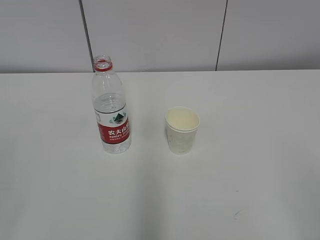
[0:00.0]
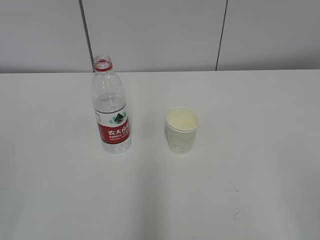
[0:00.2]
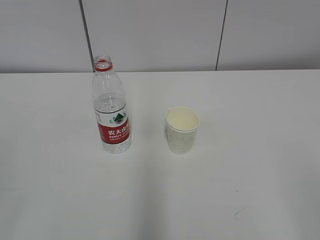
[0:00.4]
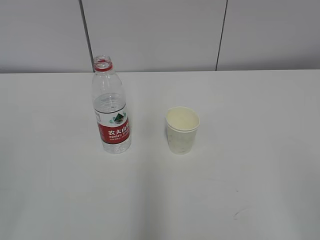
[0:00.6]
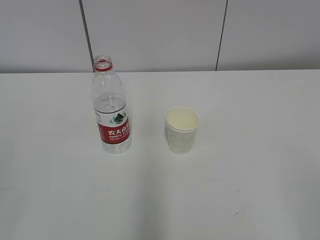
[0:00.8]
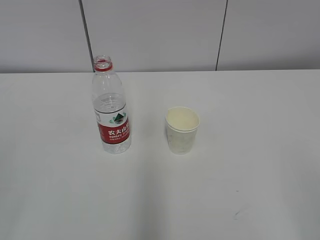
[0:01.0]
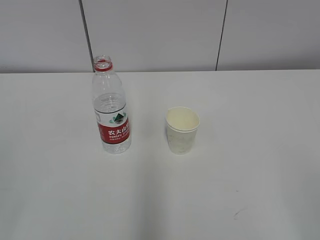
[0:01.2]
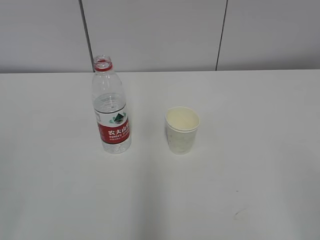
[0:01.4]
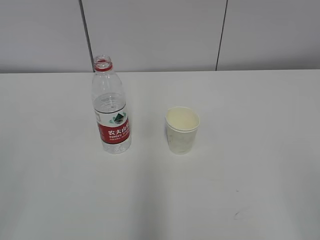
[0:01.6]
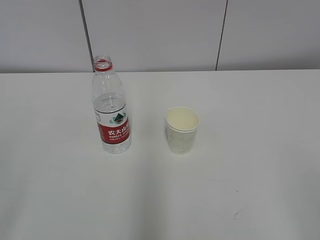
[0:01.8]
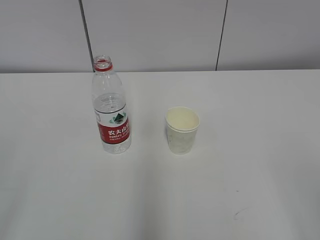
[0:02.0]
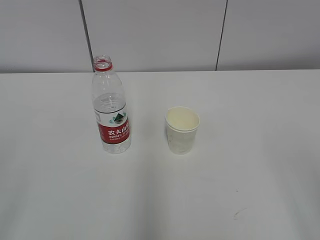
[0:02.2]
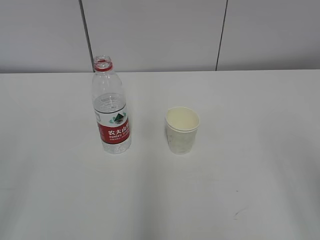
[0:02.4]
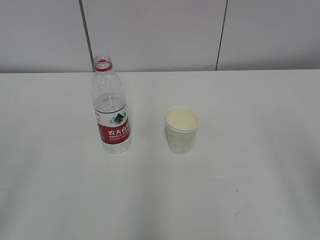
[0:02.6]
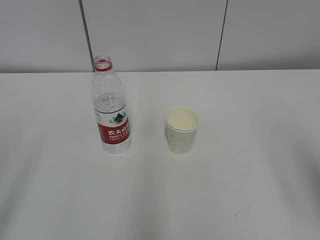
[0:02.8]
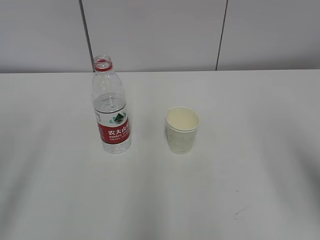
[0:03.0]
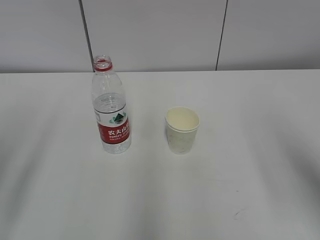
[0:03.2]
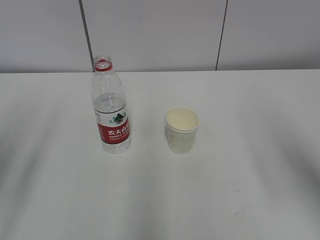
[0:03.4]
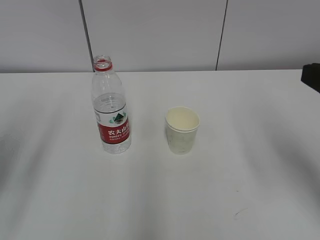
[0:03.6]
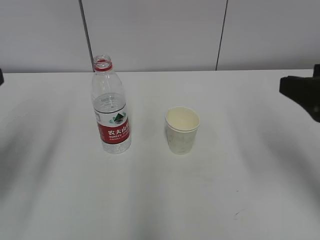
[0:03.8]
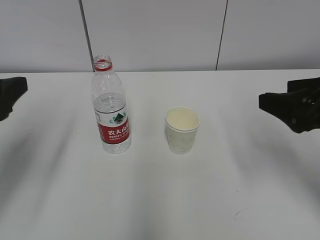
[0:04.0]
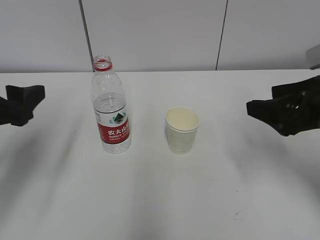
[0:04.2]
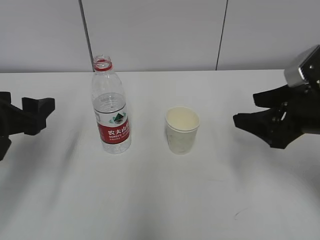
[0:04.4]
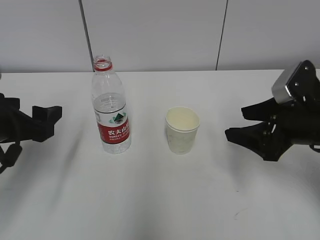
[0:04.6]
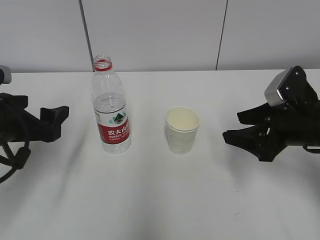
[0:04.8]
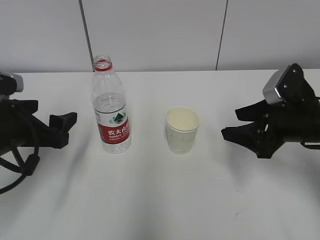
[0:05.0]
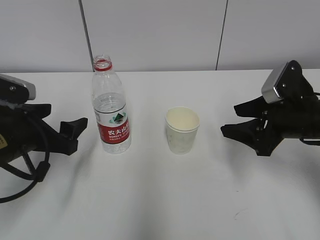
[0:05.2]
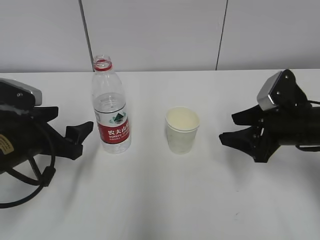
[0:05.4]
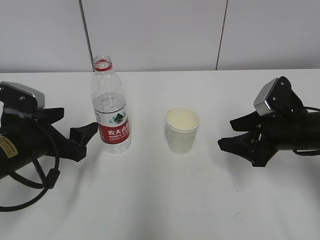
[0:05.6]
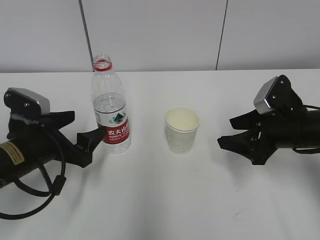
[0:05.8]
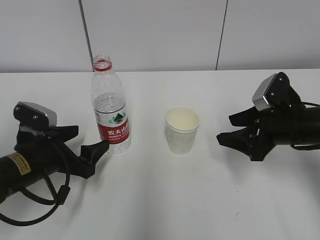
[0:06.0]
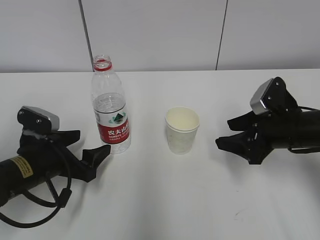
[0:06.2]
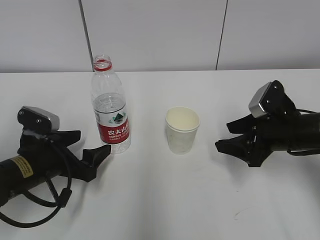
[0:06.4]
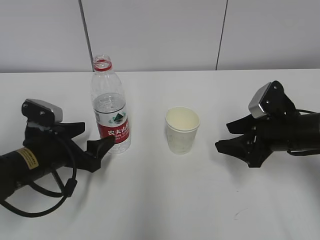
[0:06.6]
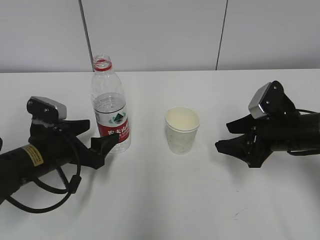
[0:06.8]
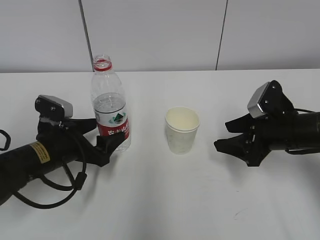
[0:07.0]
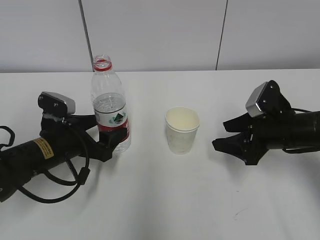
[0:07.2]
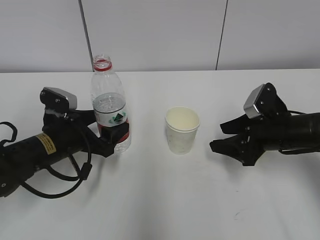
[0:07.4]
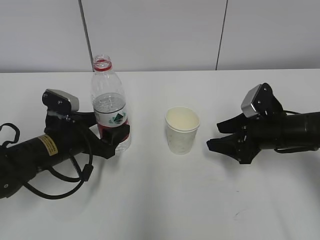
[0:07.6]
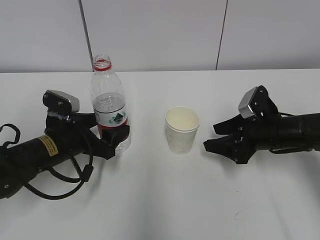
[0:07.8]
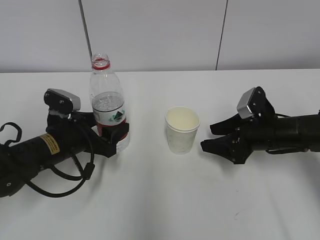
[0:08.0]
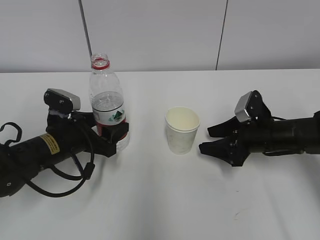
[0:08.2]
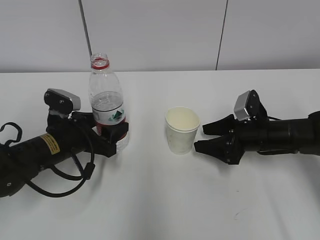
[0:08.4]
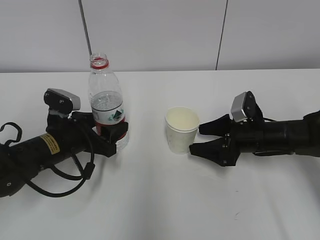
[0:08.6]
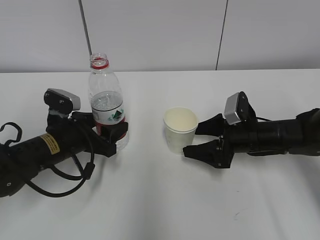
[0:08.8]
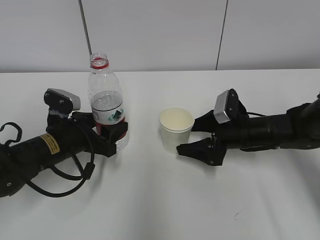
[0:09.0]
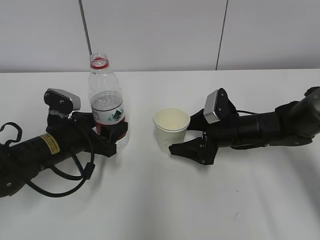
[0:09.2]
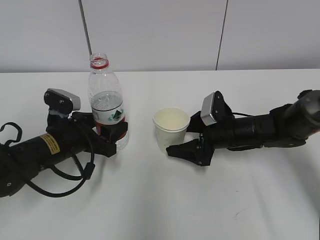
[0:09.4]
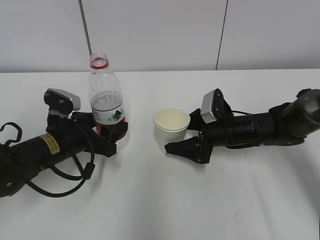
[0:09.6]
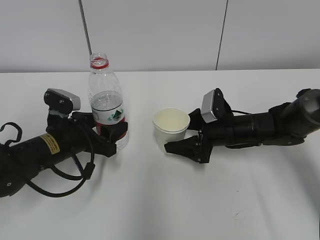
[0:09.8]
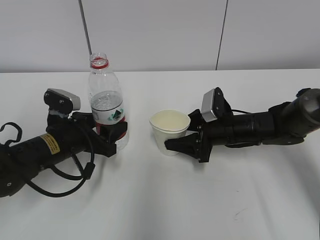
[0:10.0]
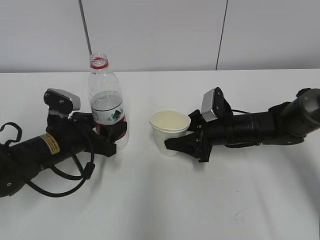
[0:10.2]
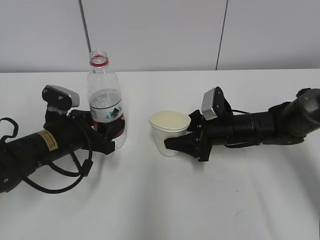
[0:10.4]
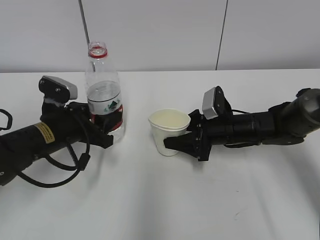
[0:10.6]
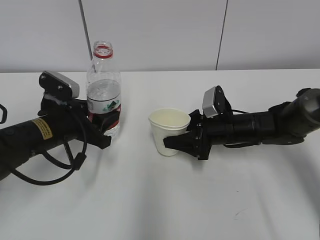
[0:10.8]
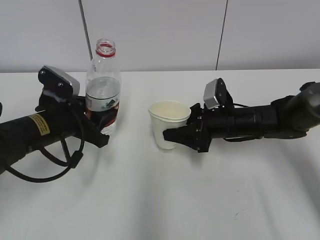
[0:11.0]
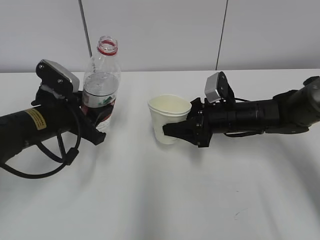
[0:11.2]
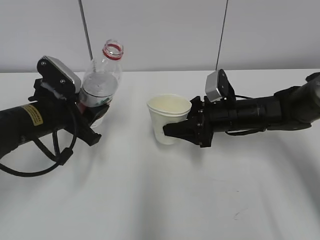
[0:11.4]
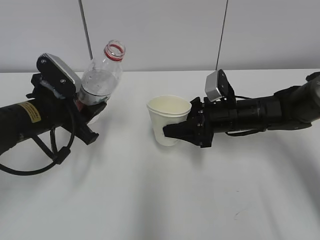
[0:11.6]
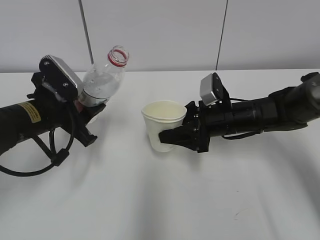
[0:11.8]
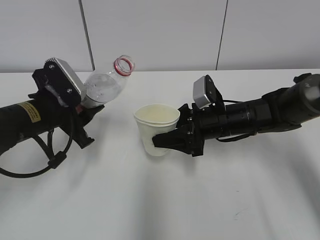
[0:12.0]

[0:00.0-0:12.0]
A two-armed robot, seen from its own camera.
Step, 0:00.0 to 0:07.0: Grab the water bottle with the left hand.
Step, 0:07.2 to 0:08.4: Grab the paper cup with the right hand.
0:01.6 to 0:03.0: The right gripper is displaced forward and upward by approximately 15 cm.
0:03.0 to 0:04.4: Both grippers move forward and downward, roughly 20 cm.
0:04.4 to 0:06.0: The left gripper heads downward, covering roughly 10 cm. The right gripper heads downward, covering approximately 5 cm.
0:06.0 to 0:07.6: The left gripper shifts by approximately 5 cm.
0:07.6 to 0:09.0: The right gripper ends up some 5 cm from where it was, and opens its fingers.
0:09.0 to 0:10.4: The right gripper closes its fingers.
0:10.4 to 0:12.0: The left gripper is displaced upward by approximately 5 cm.

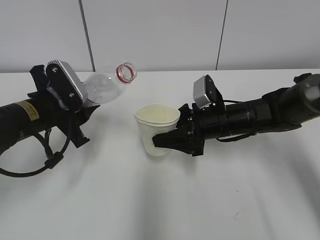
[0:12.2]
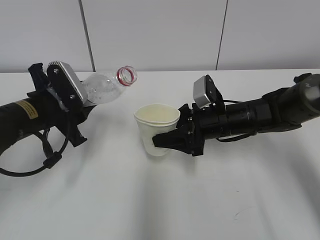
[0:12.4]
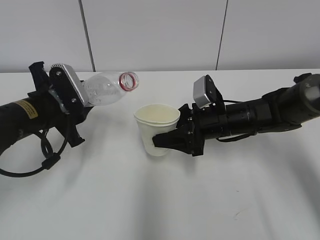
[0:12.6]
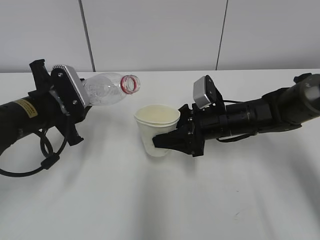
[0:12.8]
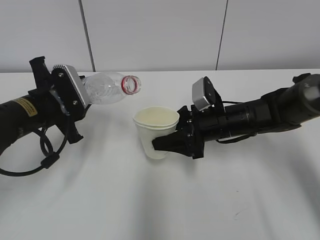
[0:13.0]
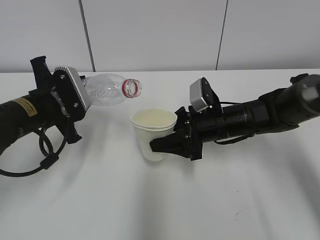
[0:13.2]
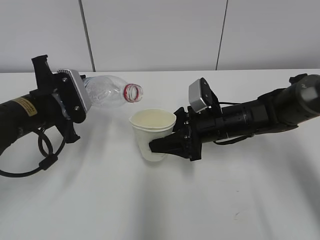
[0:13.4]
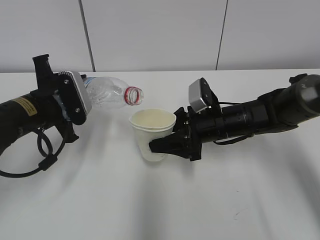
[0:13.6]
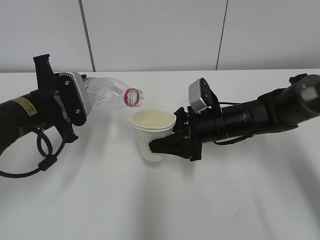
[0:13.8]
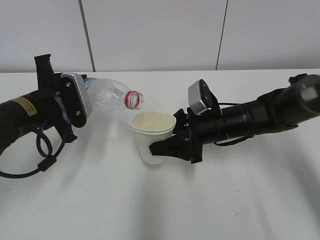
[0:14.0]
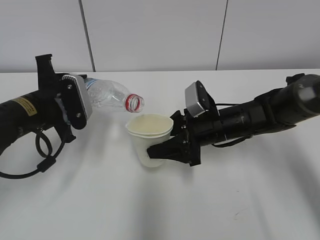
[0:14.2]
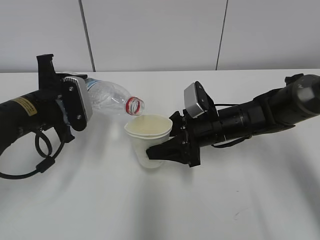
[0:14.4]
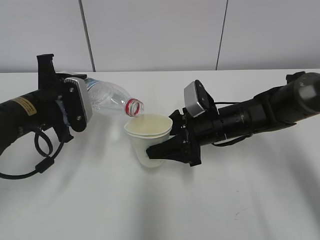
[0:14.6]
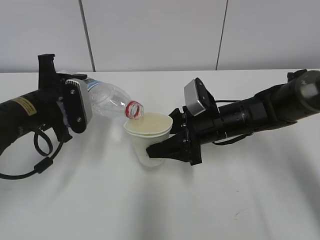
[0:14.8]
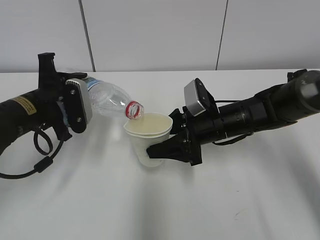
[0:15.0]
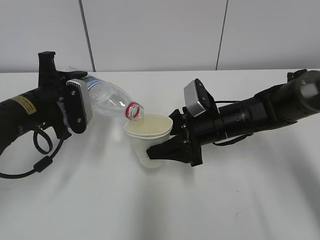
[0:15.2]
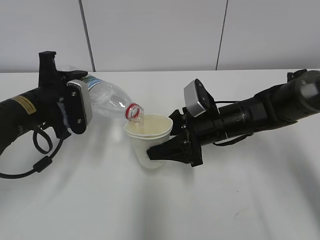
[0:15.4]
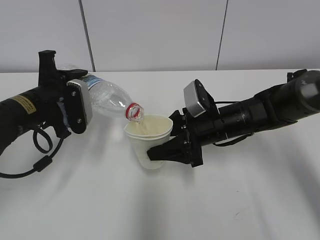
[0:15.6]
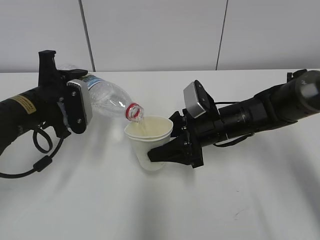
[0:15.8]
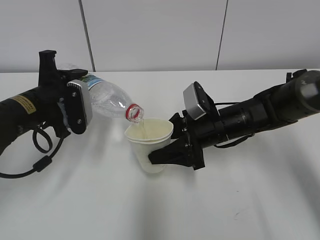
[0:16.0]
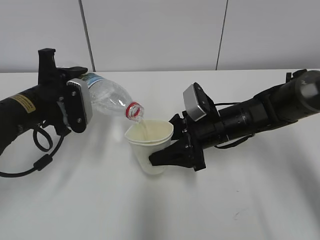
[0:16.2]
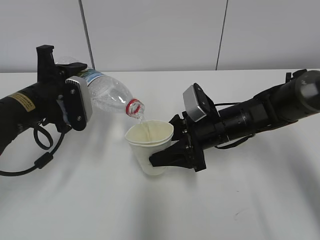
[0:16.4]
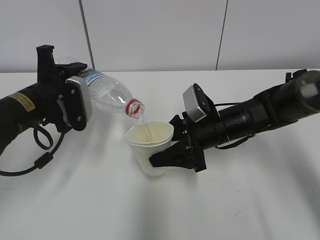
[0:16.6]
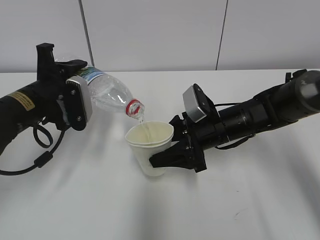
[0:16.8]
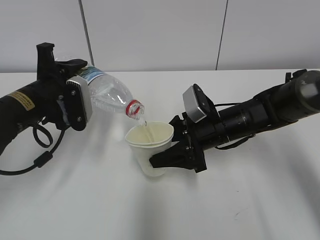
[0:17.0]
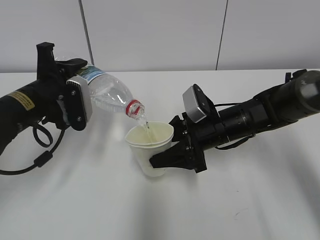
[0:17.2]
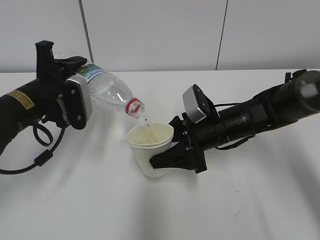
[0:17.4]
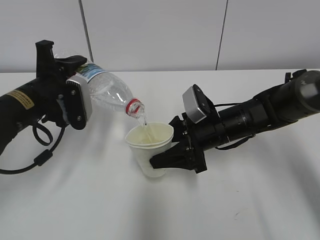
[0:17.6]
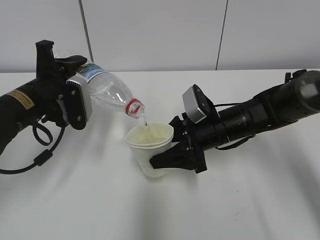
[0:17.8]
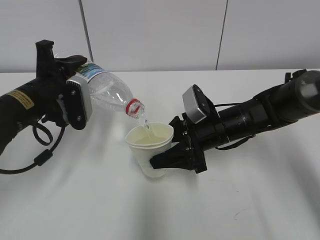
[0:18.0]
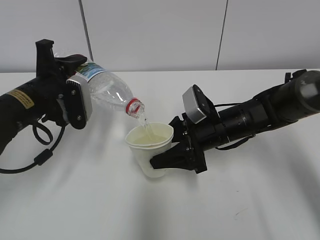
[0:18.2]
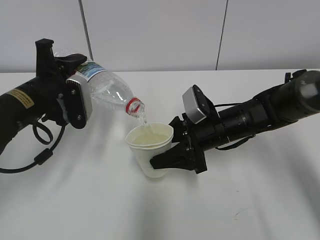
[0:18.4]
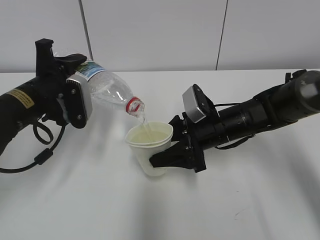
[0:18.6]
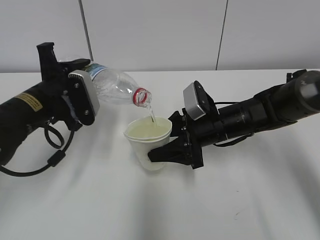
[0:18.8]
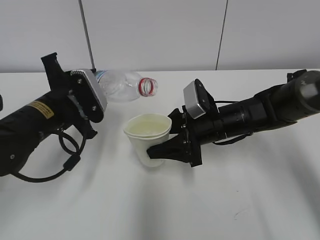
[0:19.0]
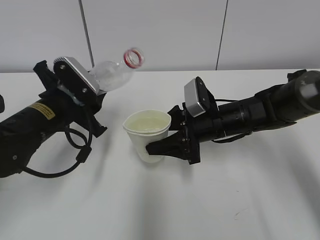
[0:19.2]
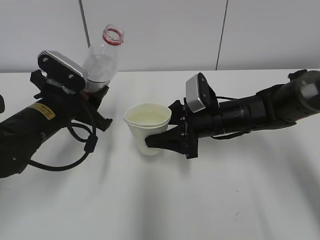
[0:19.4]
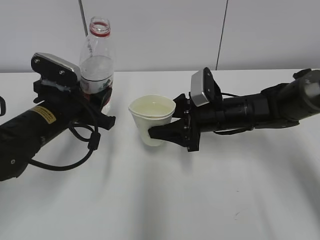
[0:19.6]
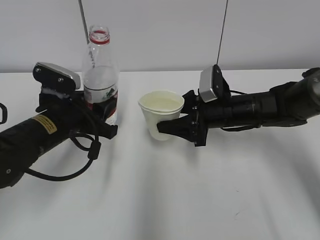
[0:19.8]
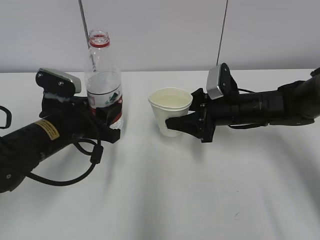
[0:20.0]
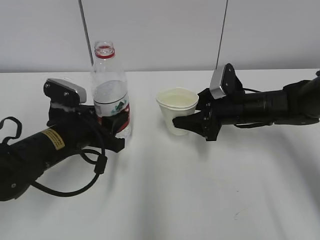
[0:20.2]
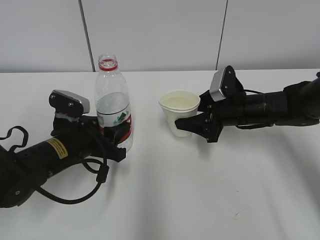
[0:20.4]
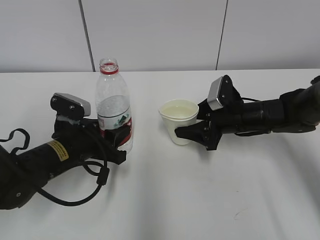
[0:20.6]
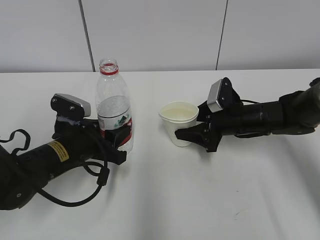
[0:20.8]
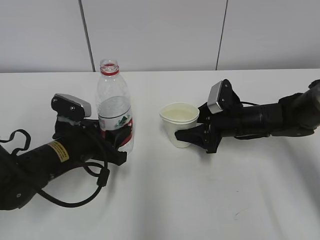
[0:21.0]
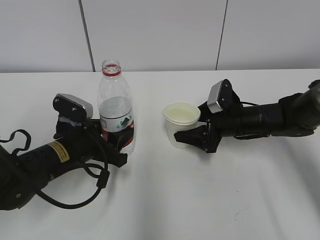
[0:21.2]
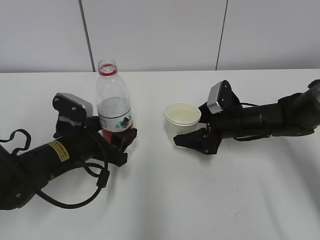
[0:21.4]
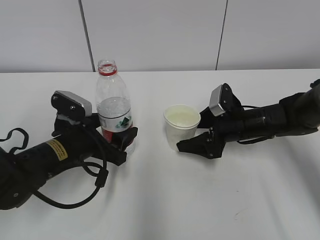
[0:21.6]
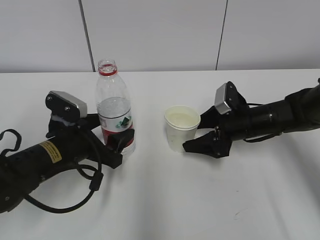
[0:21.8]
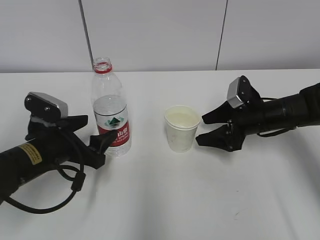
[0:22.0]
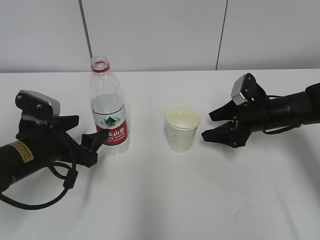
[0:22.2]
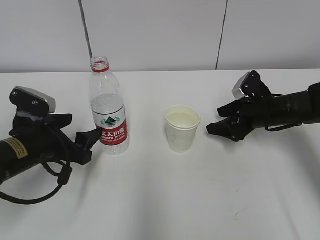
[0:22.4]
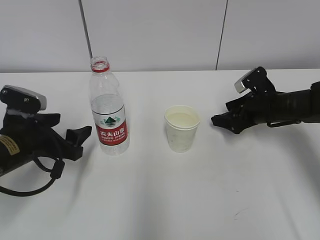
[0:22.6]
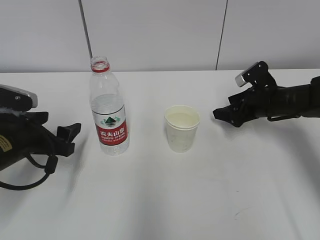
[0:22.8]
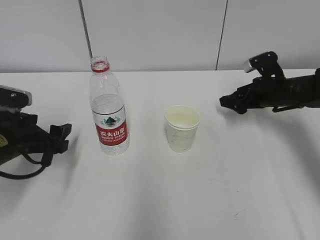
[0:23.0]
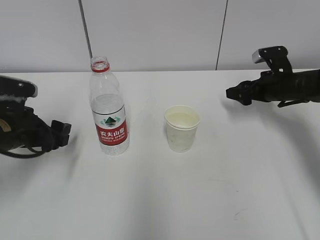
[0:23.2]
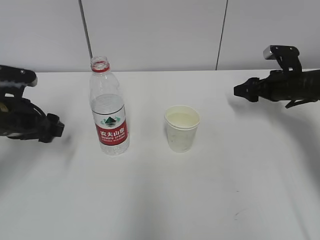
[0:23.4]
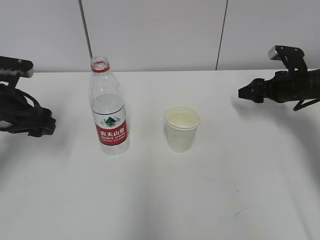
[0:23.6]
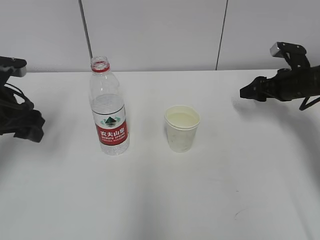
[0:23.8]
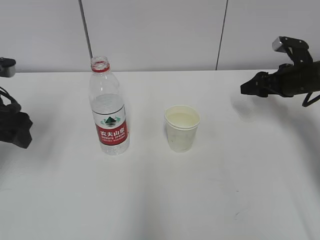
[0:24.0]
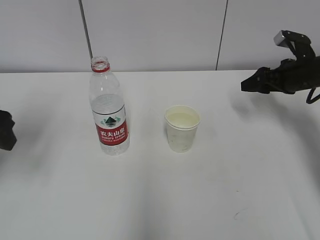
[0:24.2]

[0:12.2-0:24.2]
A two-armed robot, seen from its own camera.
Step, 0:12.4 to 0:15.6: Fill water with the right hand.
Step, 0:12.4 to 0:15.6: Pour water with the left hand.
Step, 0:15.8 to 0:16.4: Collect water with the left hand.
Step, 0:16.6 to 0:17.8: Place the water bottle with the left hand.
0:13.8 to 0:16.6: The grippers move only a little.
0:16.6 to 0:18.2: The grippers make only small movements.
0:18.2 to 0:19.8: The left gripper ends up approximately 5 cm from where it was.
0:19.8 to 0:21.2: The left gripper moves downward, approximately 5 cm. The right gripper shifts by approximately 5 cm.
0:21.2 to 0:22.6: The left gripper goes roughly 5 cm to the left, and opens up. Meanwhile the right gripper moves to the right, roughly 5 cm.
0:22.6 to 0:24.2: The left gripper travels upward and to the left by about 15 cm; the right gripper is displaced upward and to the right by some 10 cm.
